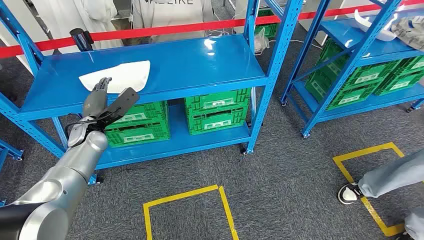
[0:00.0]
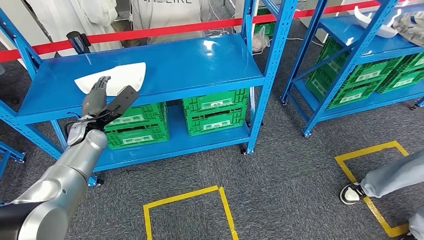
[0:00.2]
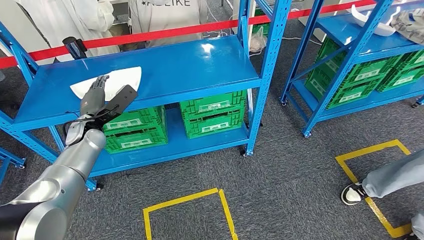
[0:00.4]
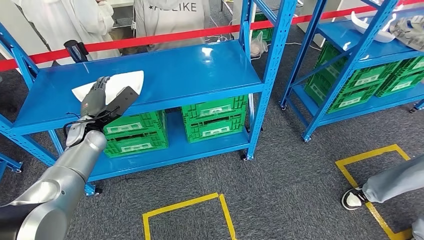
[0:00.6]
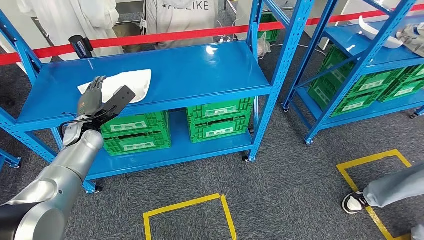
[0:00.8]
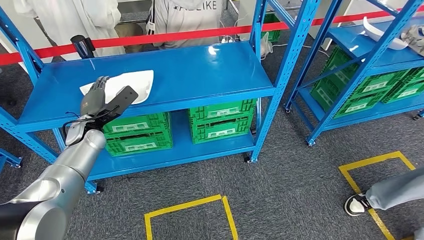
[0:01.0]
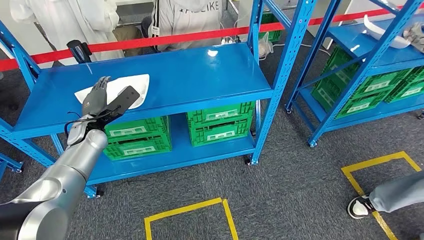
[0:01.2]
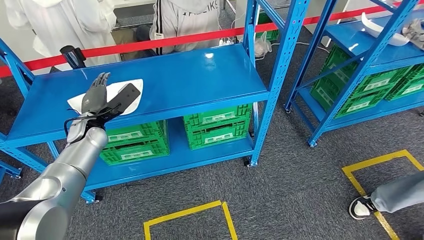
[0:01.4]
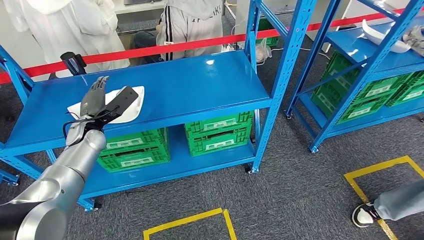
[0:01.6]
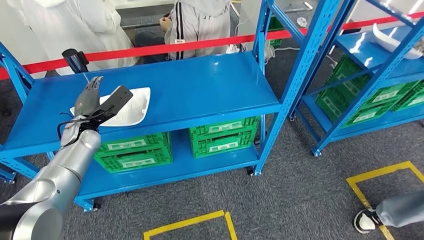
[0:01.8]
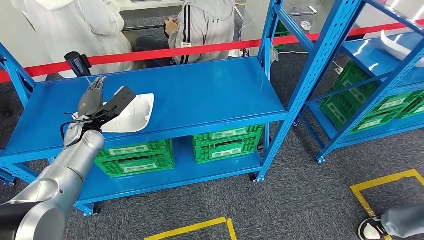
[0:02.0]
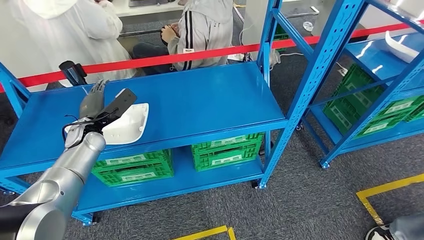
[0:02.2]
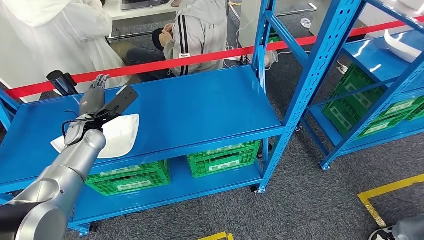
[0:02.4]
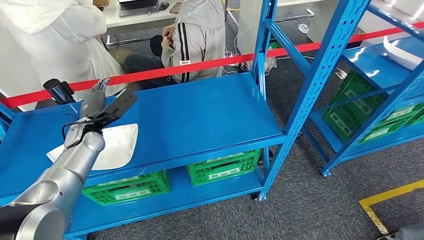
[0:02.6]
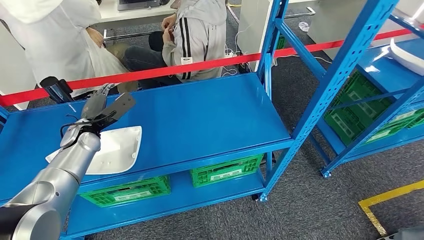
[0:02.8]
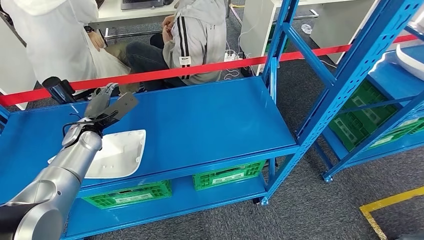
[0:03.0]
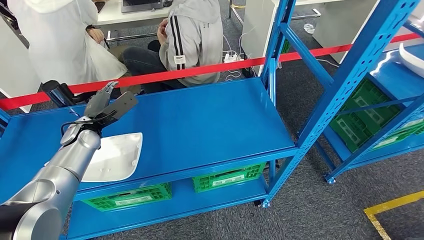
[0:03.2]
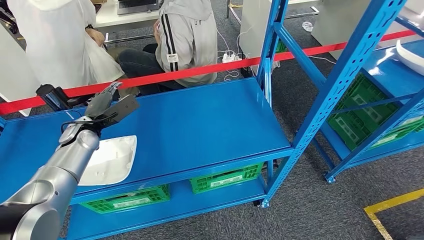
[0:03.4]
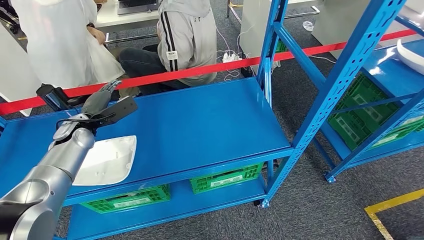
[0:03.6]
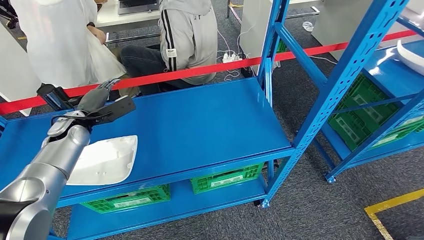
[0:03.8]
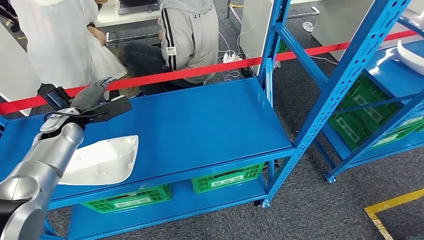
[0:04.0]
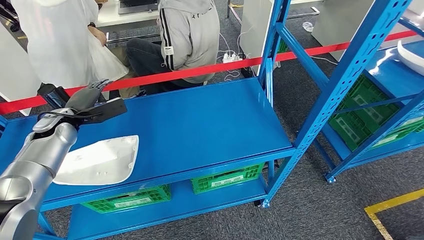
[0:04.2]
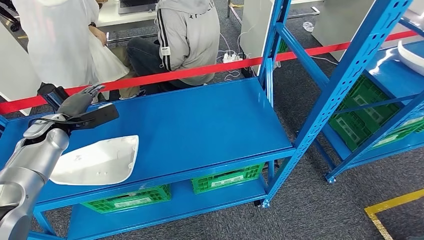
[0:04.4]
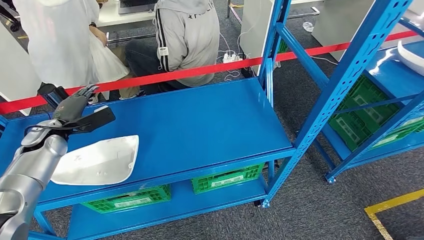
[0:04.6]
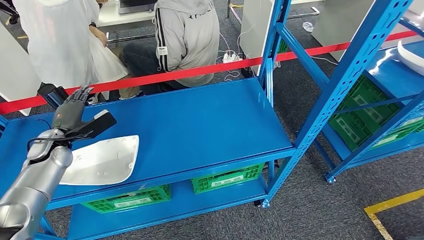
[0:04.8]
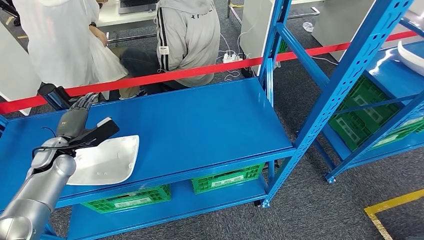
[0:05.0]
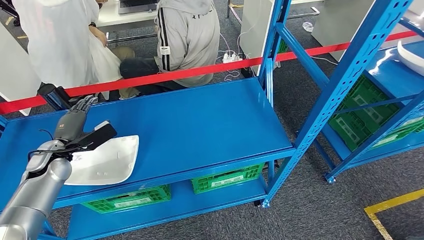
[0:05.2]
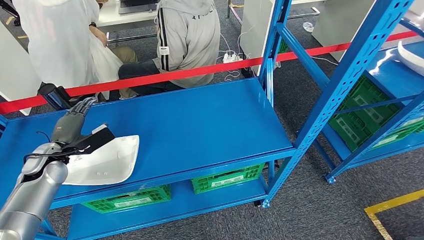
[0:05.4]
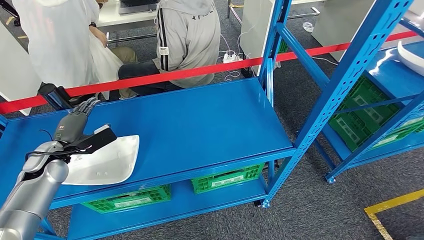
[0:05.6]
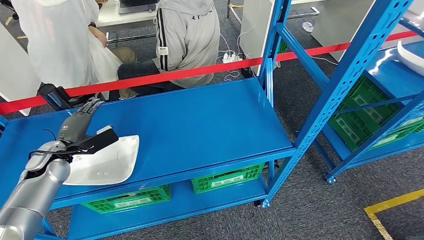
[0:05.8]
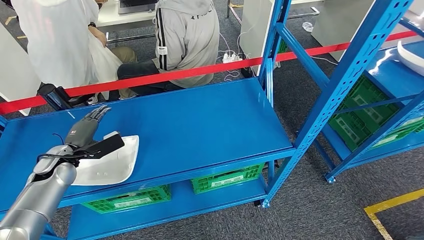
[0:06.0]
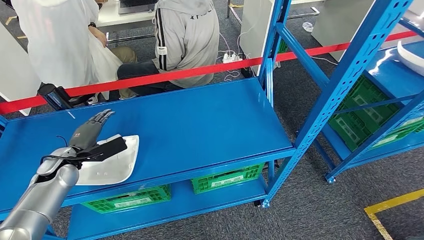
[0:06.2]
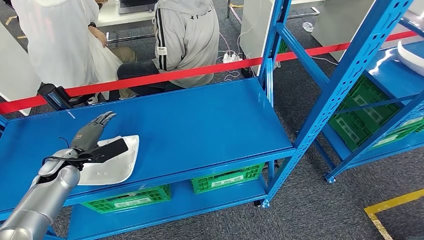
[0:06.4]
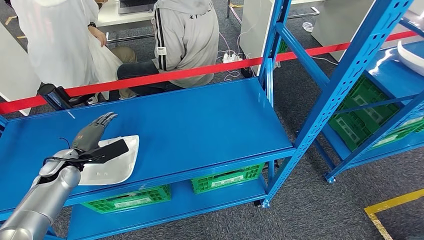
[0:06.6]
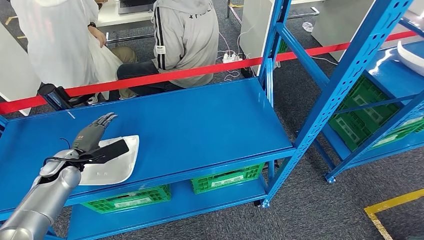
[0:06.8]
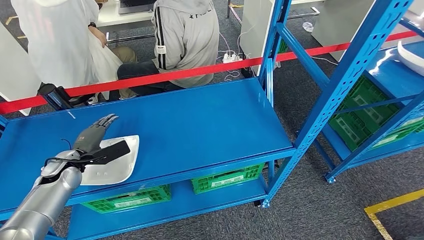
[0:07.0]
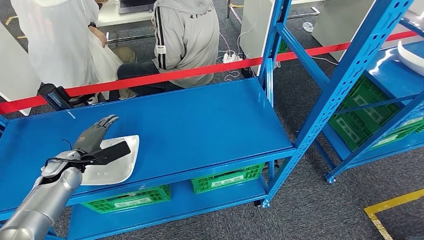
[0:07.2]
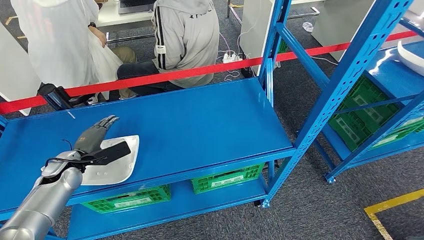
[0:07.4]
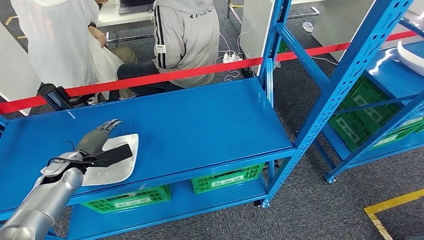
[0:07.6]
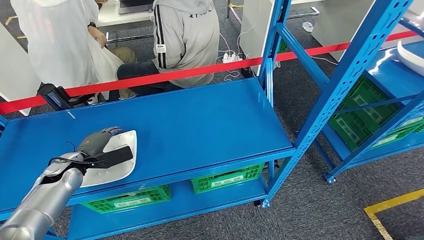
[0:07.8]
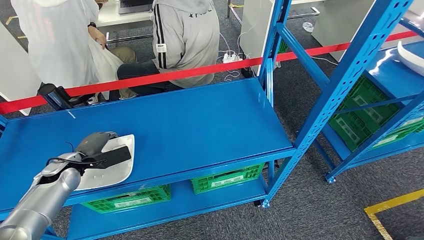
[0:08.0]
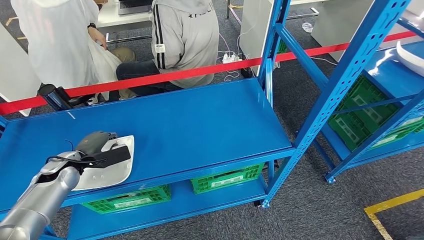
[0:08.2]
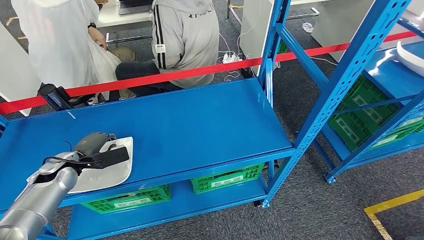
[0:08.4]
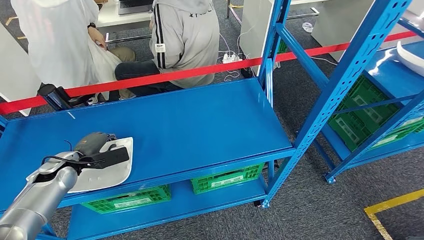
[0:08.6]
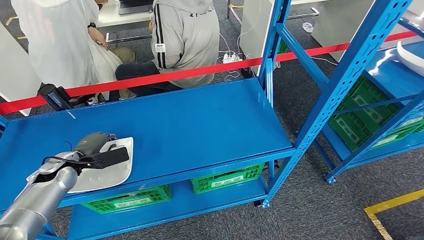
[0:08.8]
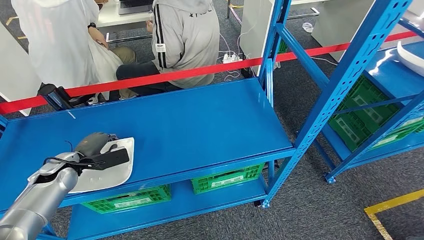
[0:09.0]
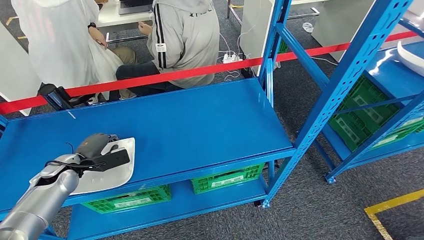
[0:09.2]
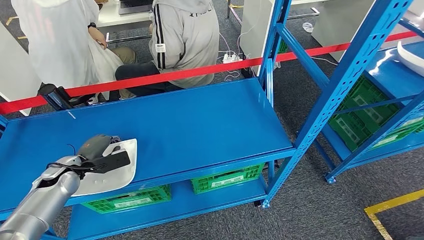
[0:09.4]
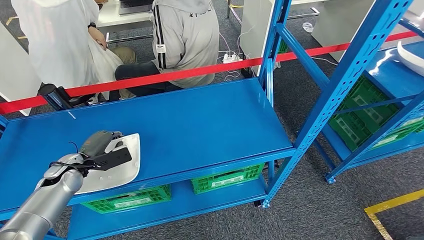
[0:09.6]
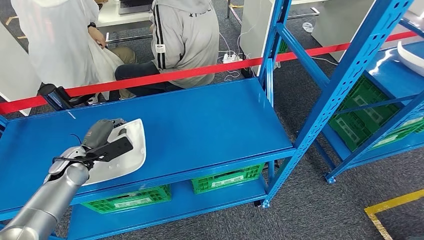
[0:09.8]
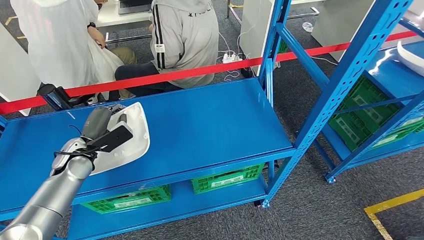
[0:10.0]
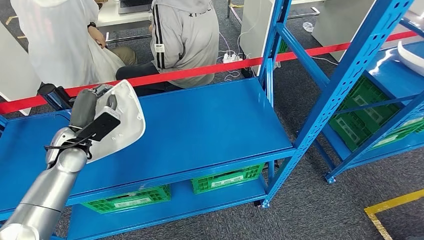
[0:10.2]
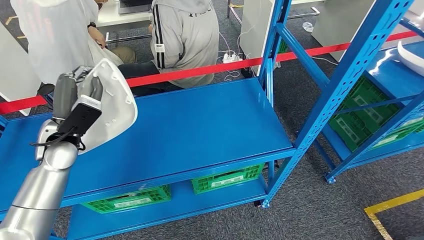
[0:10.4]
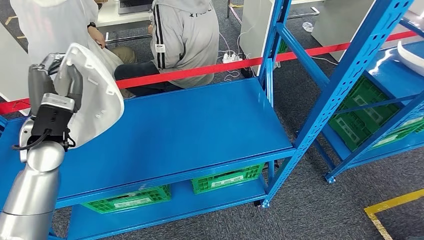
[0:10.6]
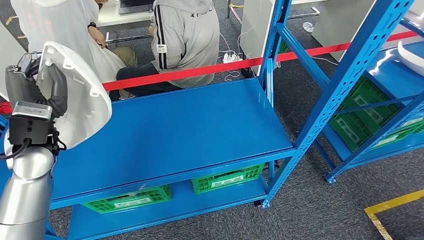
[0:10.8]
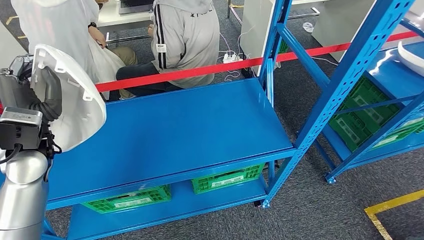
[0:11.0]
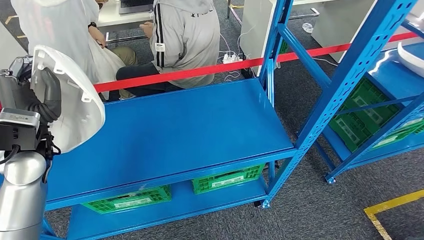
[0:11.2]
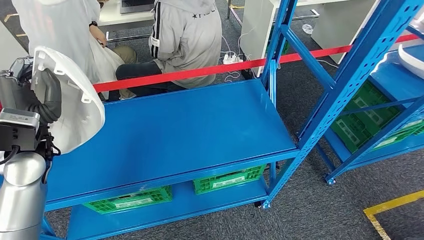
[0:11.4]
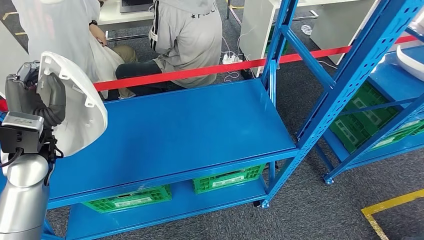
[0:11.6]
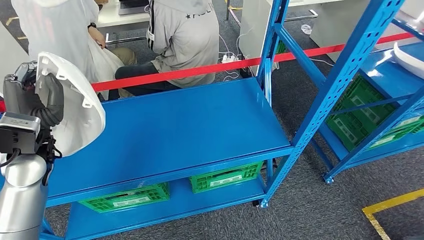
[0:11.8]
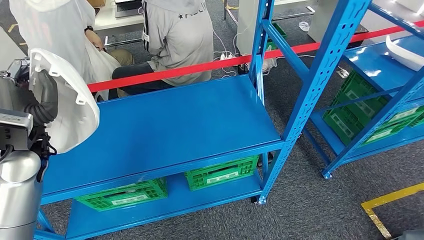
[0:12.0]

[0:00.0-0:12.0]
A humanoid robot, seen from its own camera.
Step, 0:00.0 to 0:10.2: Pick up the large material from the shelf.
0:04.4 to 0:06.0: The left hand is displaced downward and backward by some 10 cm.
0:06.0 to 0:09.0: The hands move only a little.
0:09.0 to 0:10.4: The left hand is displaced upward and to the right by roughly 15 cm.

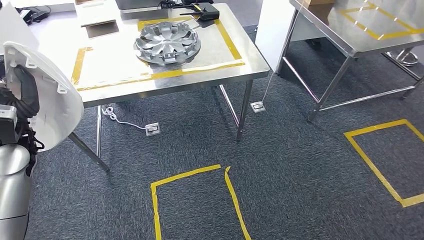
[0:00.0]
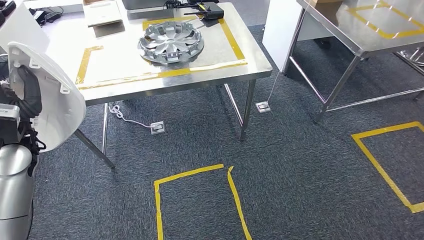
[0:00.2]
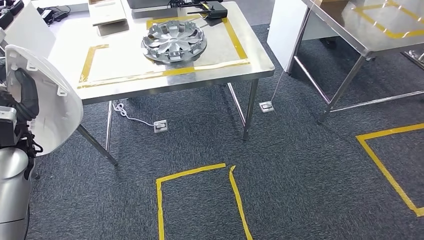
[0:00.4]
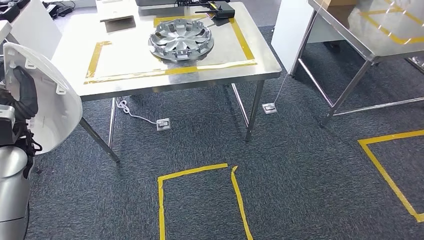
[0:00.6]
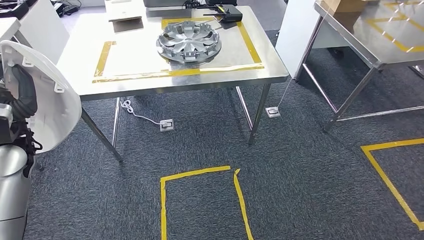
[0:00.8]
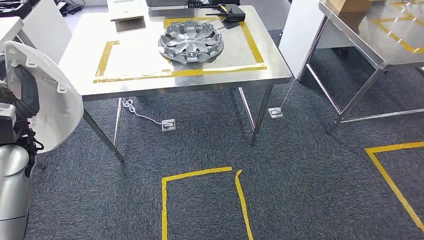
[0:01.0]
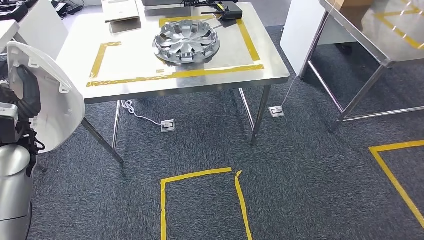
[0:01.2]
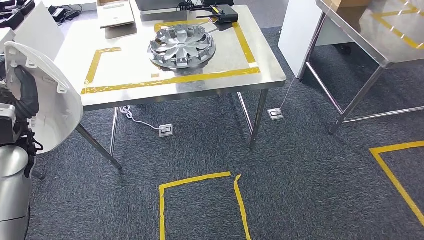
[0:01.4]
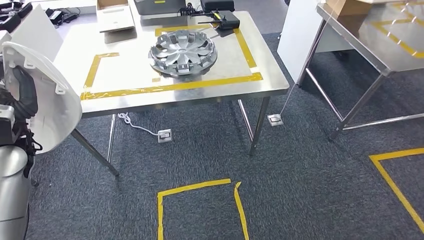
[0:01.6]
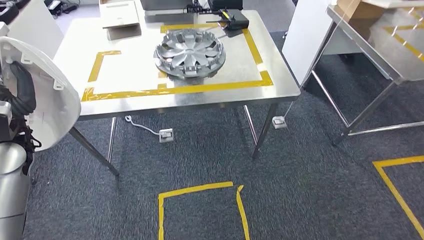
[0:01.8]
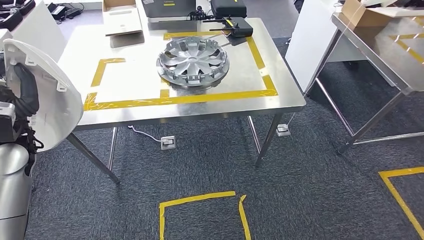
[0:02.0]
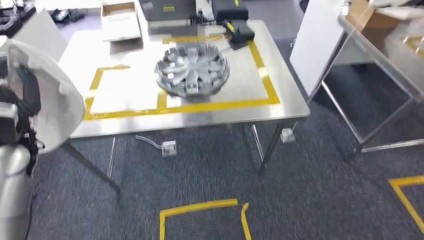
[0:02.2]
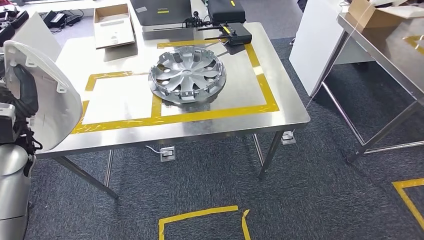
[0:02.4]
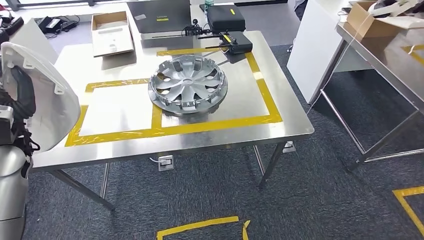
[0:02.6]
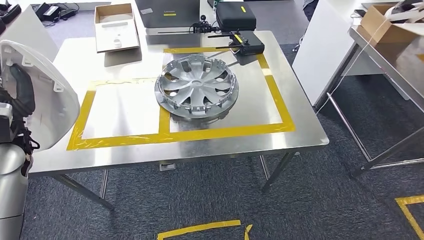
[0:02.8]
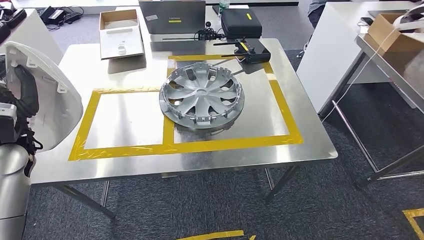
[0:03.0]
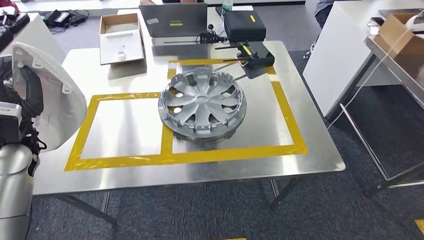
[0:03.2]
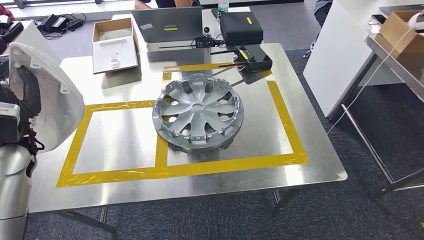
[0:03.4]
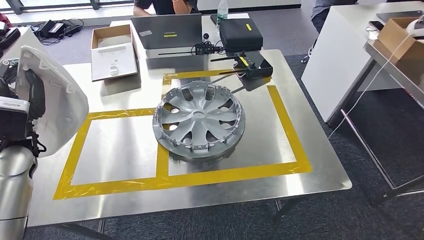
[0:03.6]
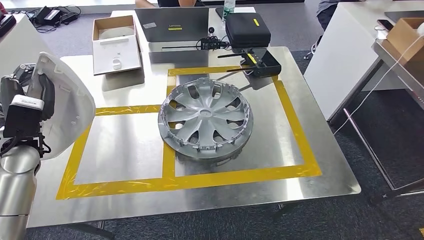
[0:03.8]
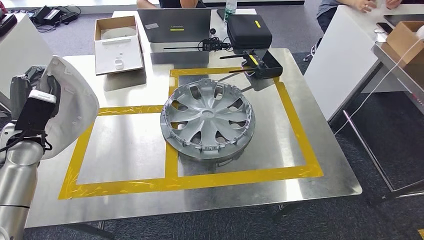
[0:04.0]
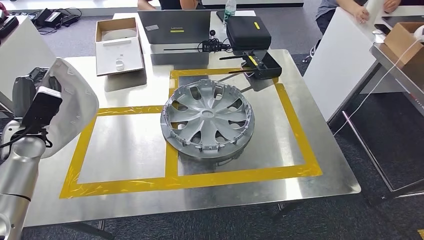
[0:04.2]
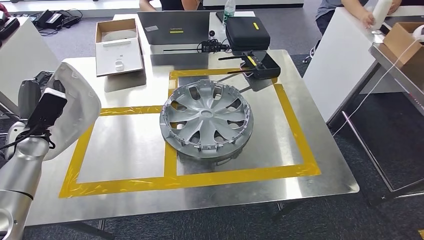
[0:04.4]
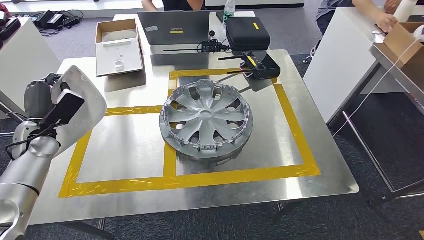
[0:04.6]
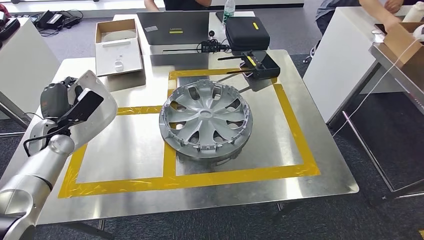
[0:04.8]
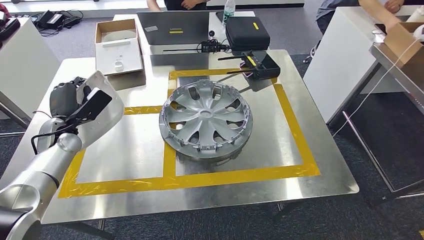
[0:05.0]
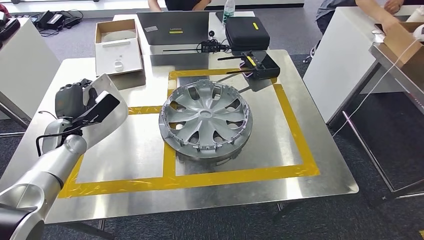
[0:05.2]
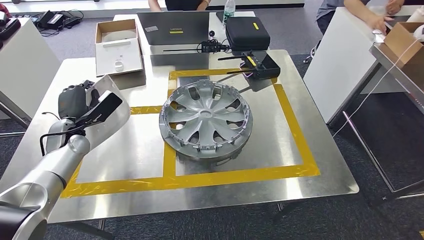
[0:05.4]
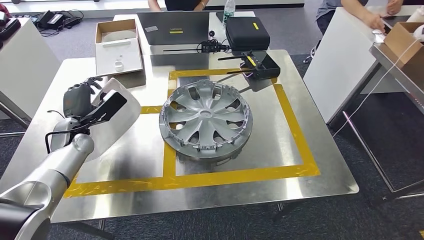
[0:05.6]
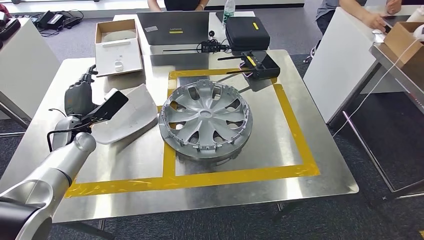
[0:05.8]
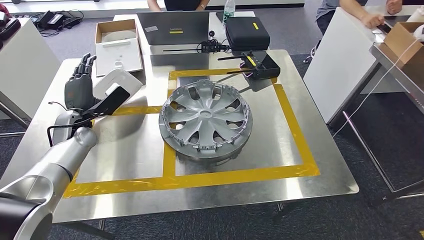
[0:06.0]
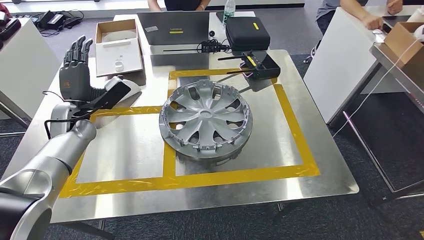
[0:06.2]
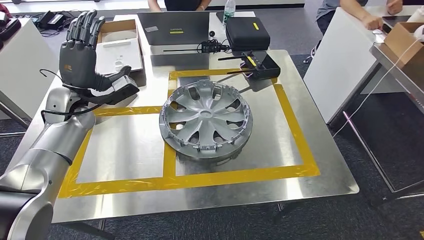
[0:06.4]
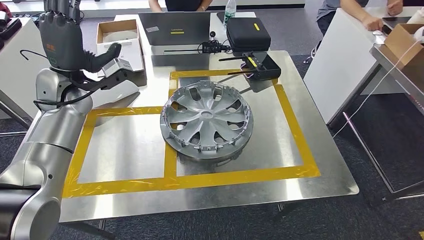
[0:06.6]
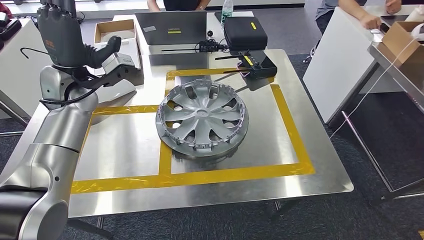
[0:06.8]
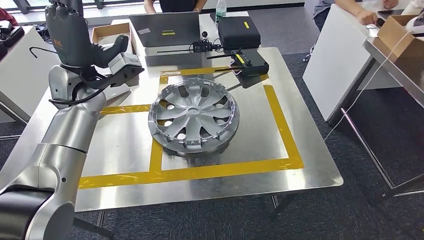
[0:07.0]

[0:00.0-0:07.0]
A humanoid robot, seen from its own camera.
Step, 0:00.0 to 0:03.6: Move the large material to the front of the workbench.
